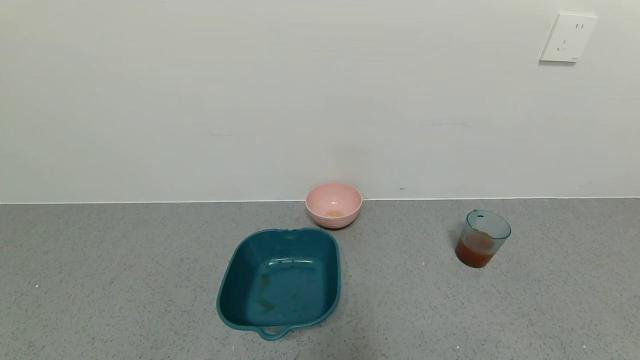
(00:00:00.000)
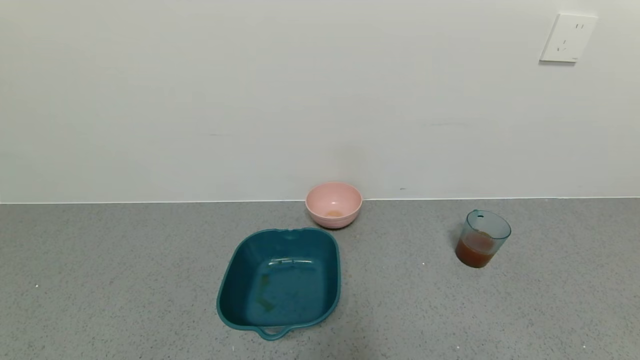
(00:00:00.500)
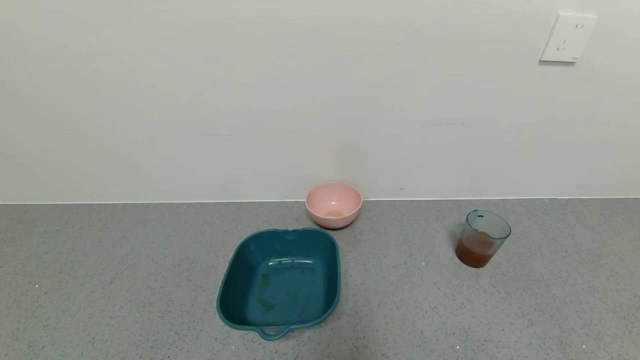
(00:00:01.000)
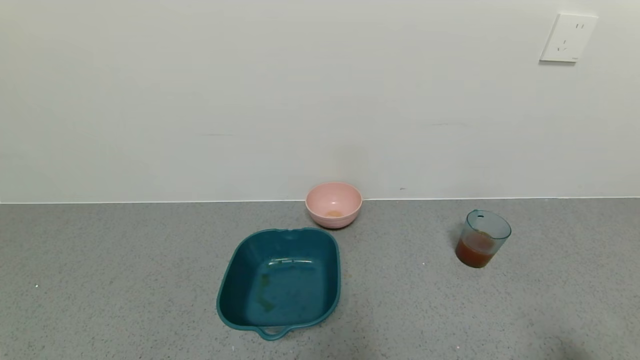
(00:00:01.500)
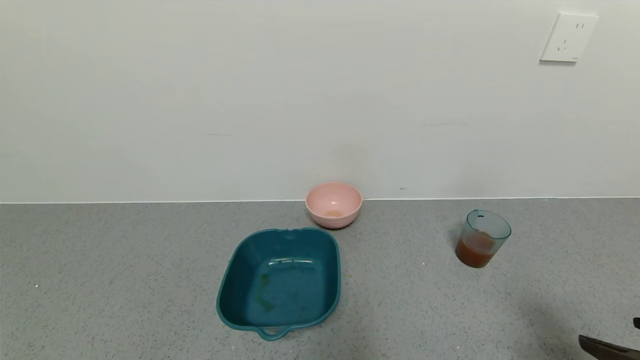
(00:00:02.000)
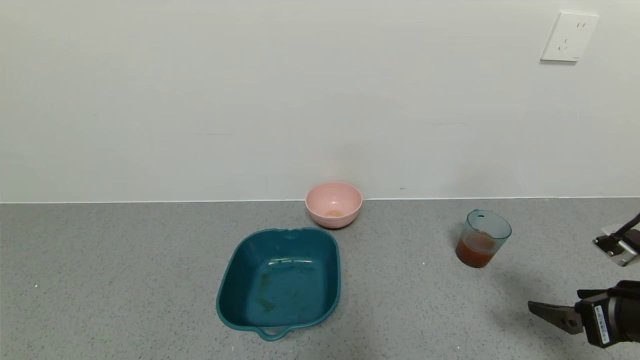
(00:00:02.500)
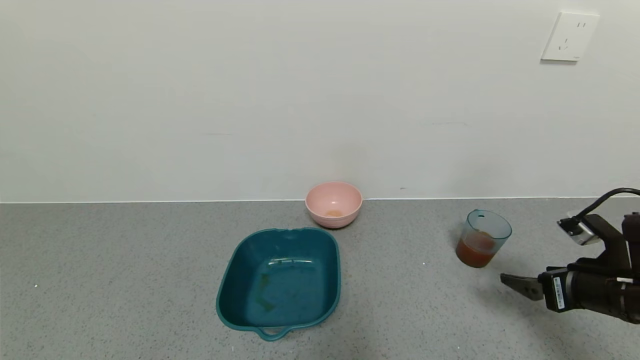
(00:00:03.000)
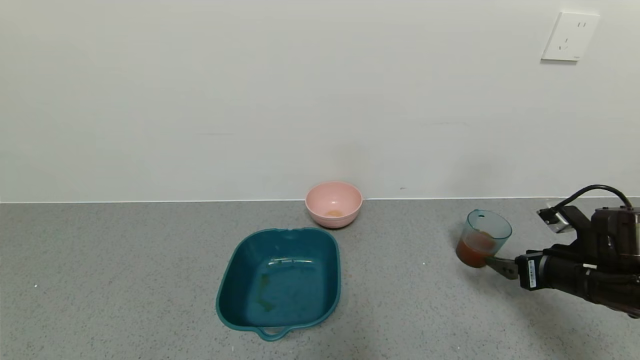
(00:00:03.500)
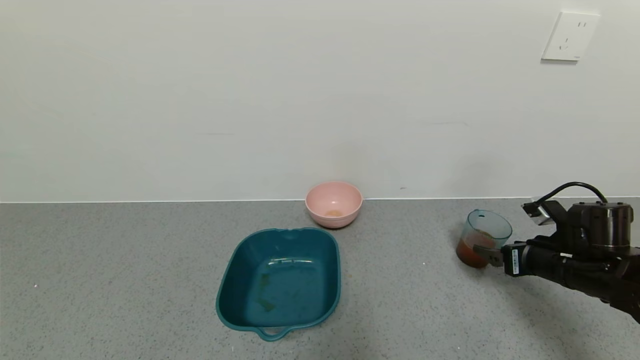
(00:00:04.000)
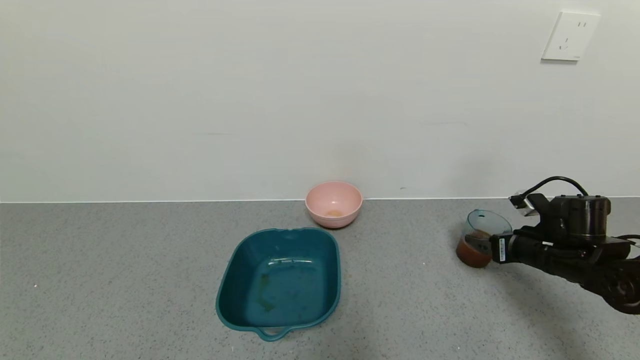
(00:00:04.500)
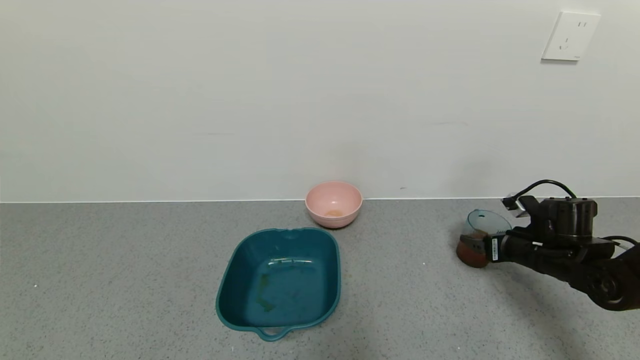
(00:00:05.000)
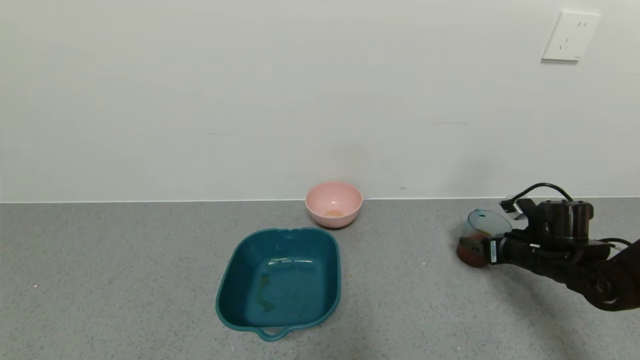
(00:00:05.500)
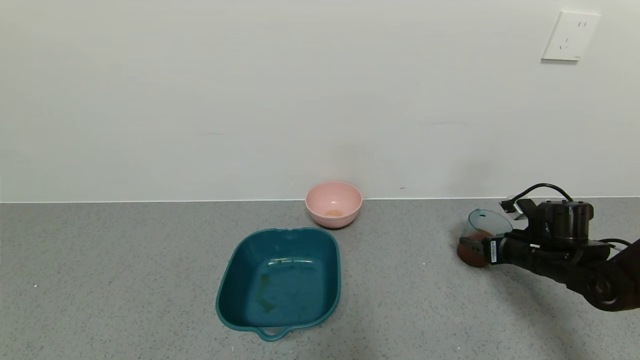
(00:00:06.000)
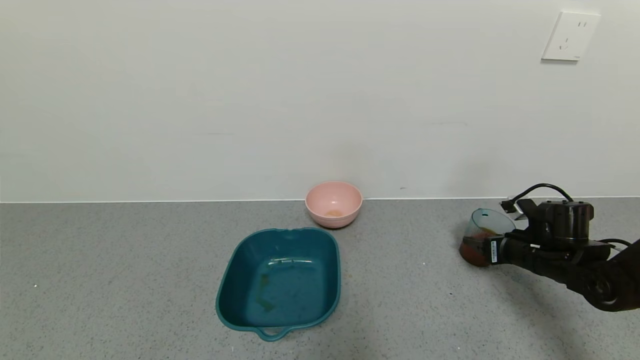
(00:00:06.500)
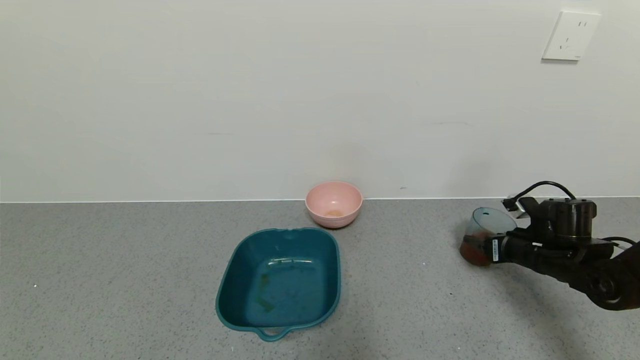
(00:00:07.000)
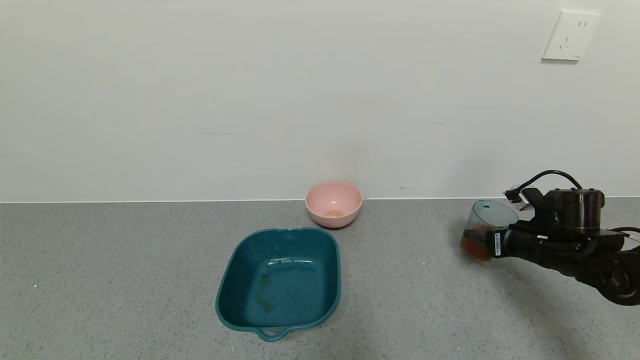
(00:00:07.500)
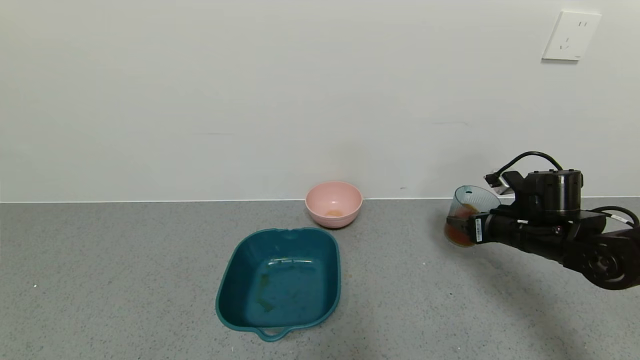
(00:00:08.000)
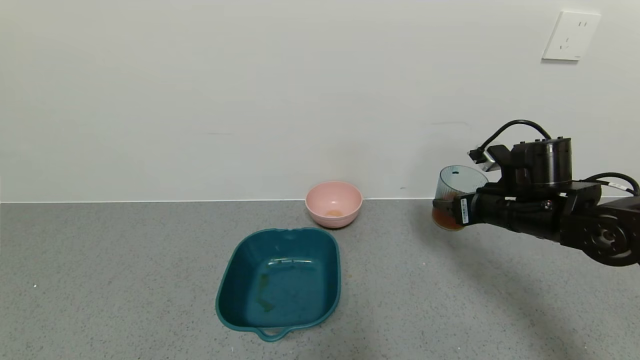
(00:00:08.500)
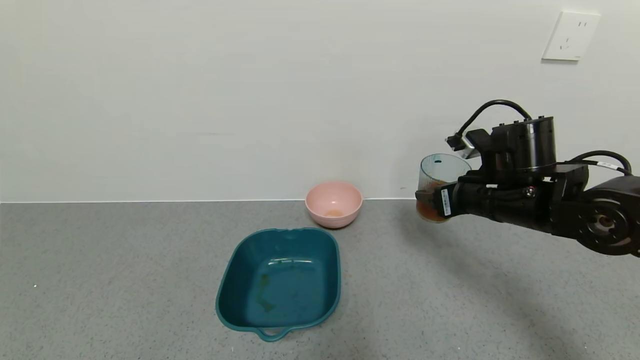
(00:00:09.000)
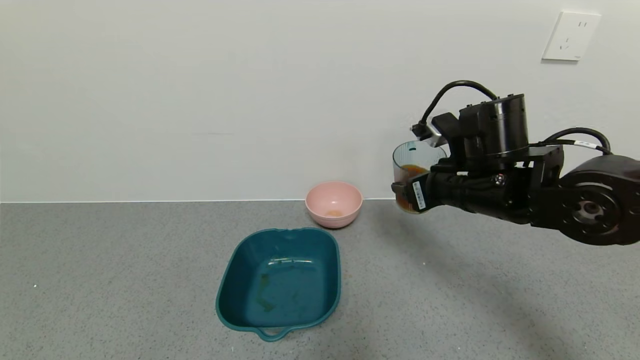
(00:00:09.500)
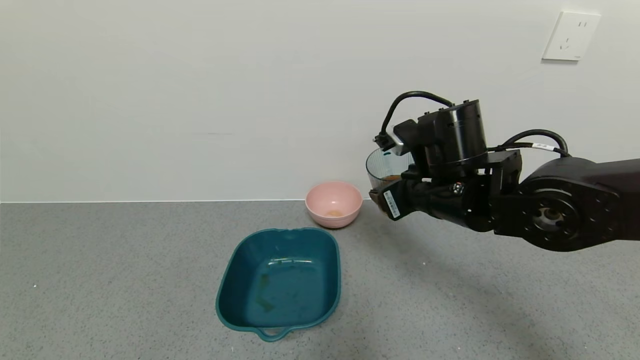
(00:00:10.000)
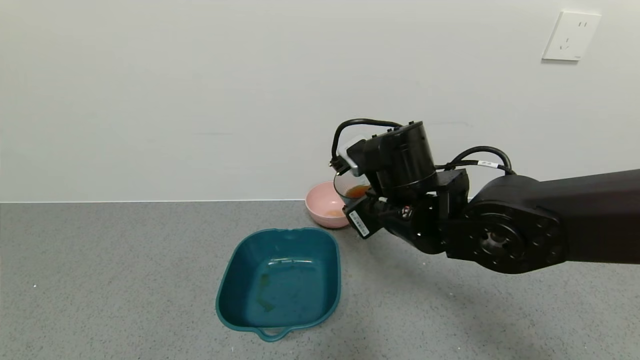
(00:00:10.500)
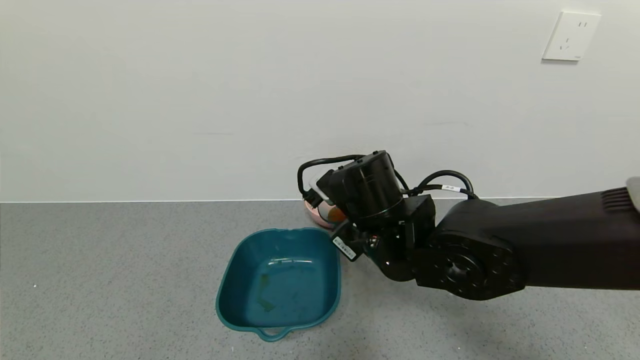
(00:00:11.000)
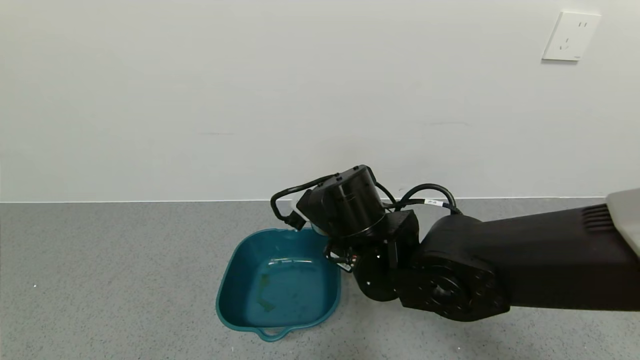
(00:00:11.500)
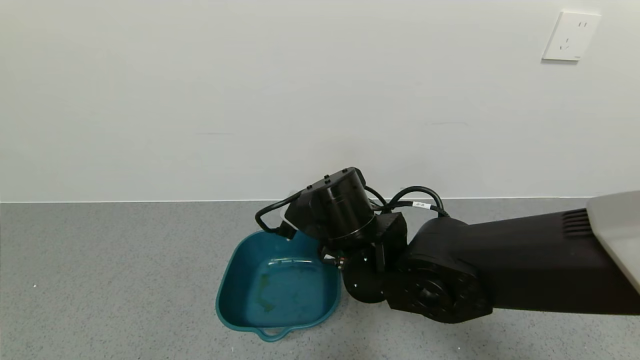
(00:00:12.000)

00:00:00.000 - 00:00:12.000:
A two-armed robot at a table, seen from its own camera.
Task of the whole recording: use a gripper to pick up the cup and pour the liquid into a bowl or tray.
00:00:00.000 - 00:00:02.000: The right gripper shifts roughly 15 cm forward and upward.
00:00:02.000 - 00:00:04.000: The right gripper is displaced forward by roughly 20 cm.
00:00:04.000 - 00:00:06.000: The right gripper moves roughly 5 cm.
00:00:06.000 - 00:00:08.000: The right gripper travels upward by some 5 cm, and closes.
00:00:08.000 - 00:00:10.000: The right gripper heads to the left and upward, covering some 20 cm.
00:00:10.000 - 00:00:12.000: The right gripper is displaced to the left and downward by approximately 10 cm.

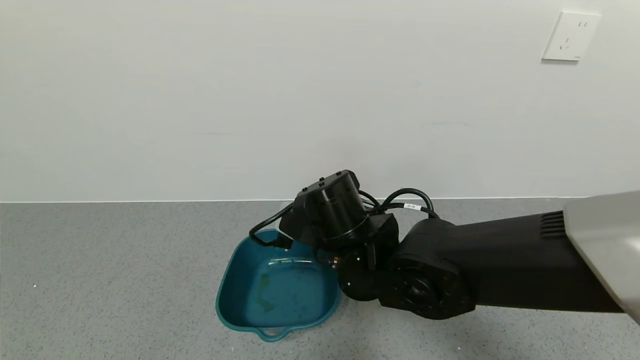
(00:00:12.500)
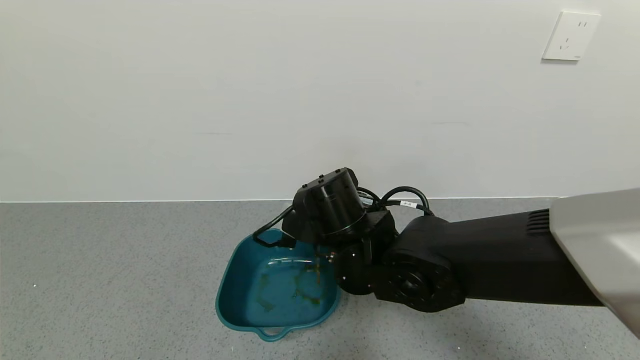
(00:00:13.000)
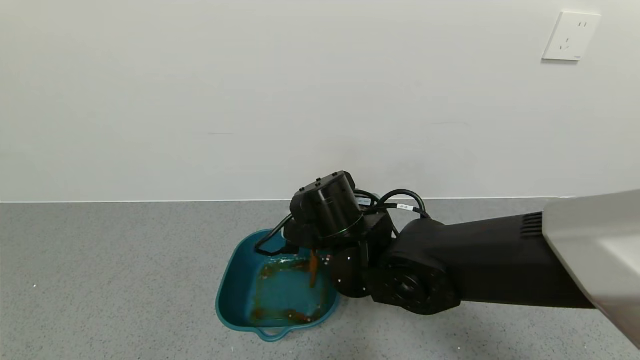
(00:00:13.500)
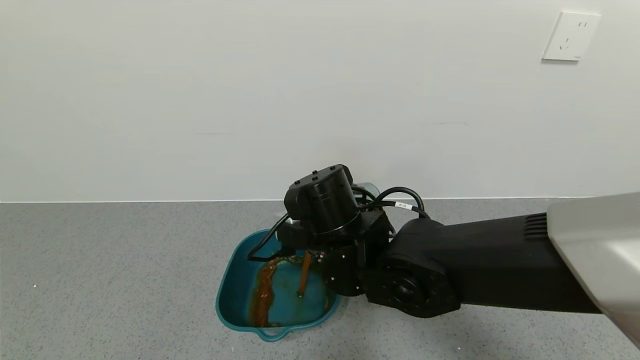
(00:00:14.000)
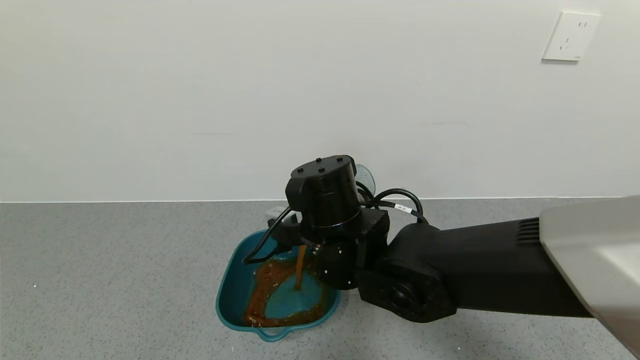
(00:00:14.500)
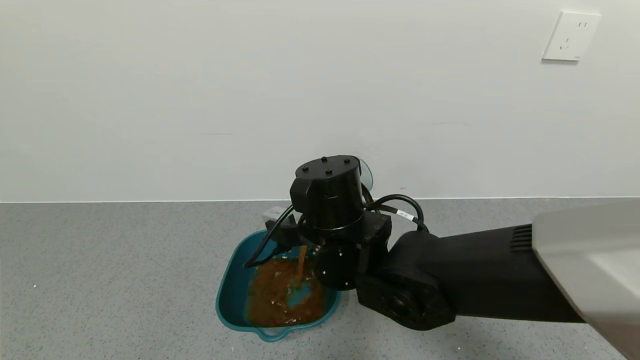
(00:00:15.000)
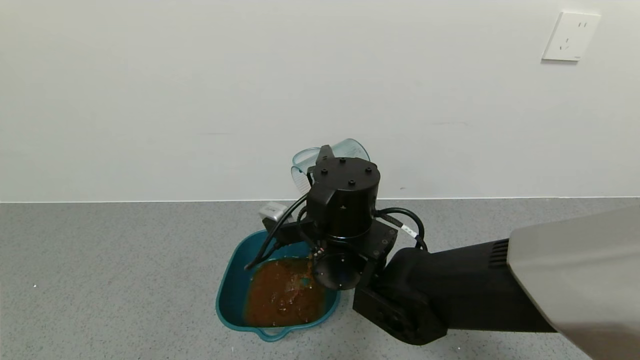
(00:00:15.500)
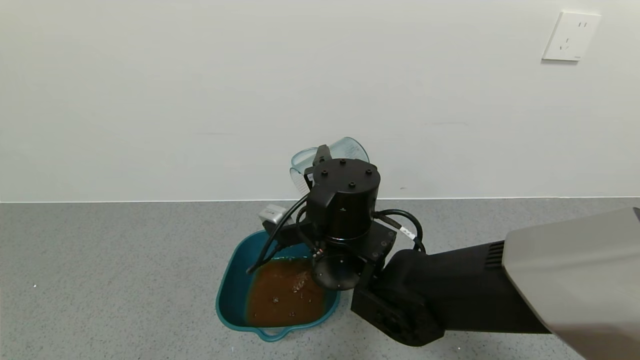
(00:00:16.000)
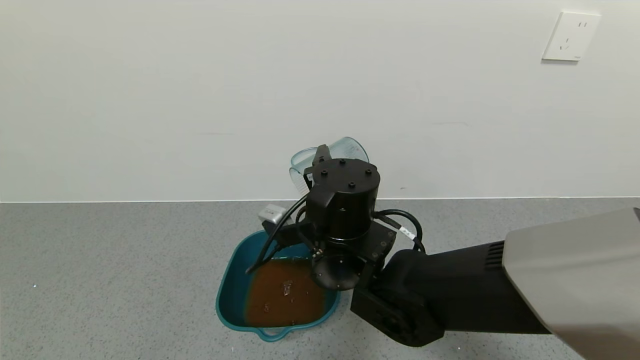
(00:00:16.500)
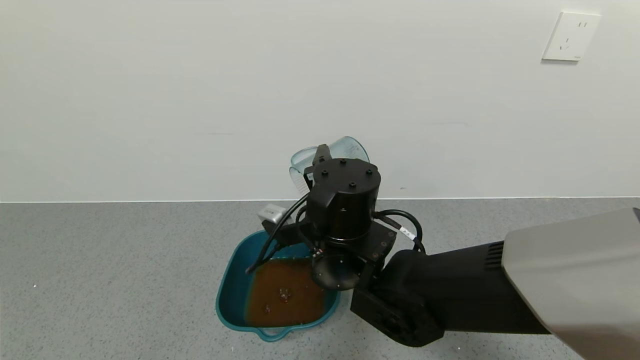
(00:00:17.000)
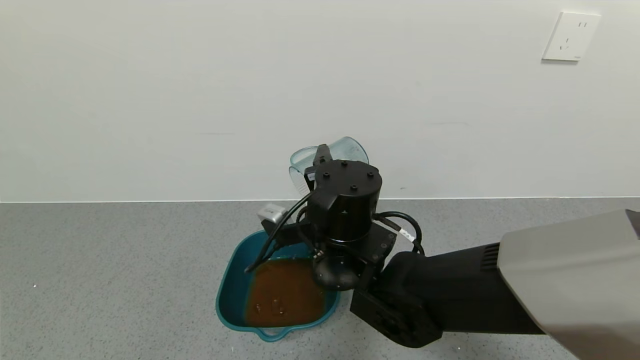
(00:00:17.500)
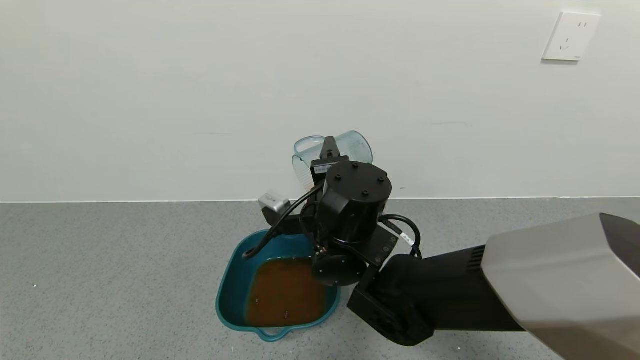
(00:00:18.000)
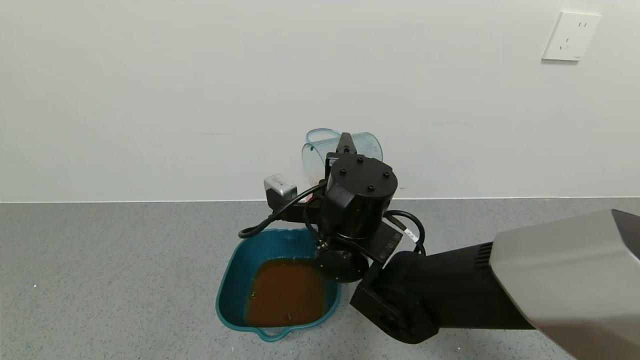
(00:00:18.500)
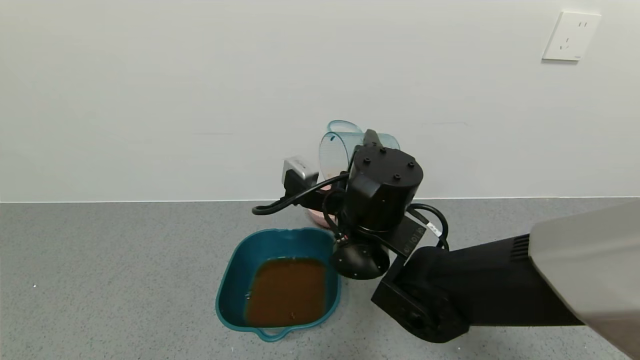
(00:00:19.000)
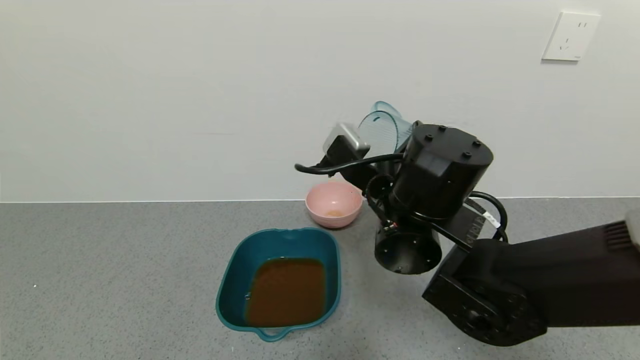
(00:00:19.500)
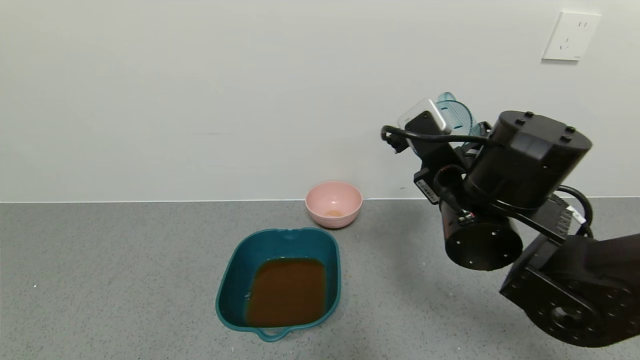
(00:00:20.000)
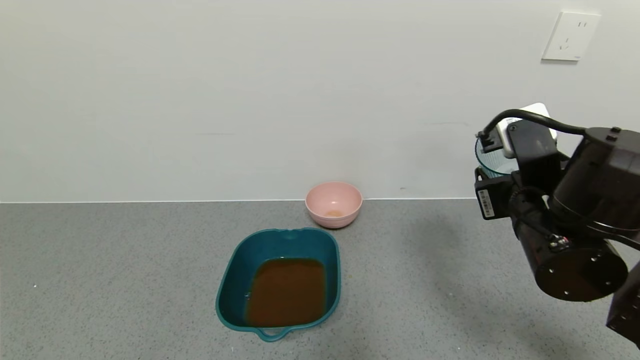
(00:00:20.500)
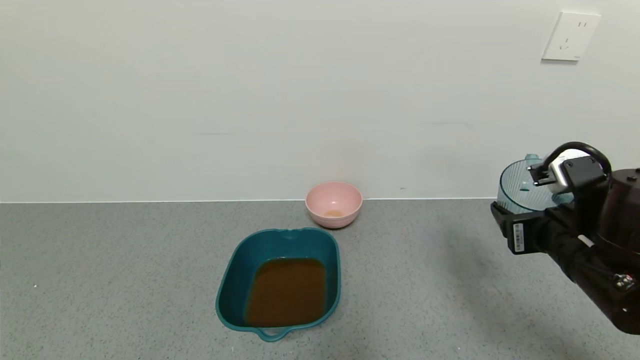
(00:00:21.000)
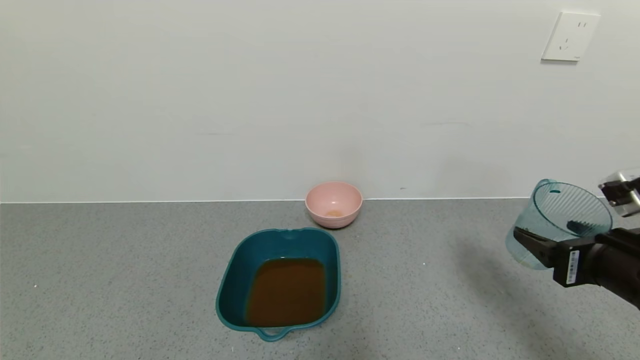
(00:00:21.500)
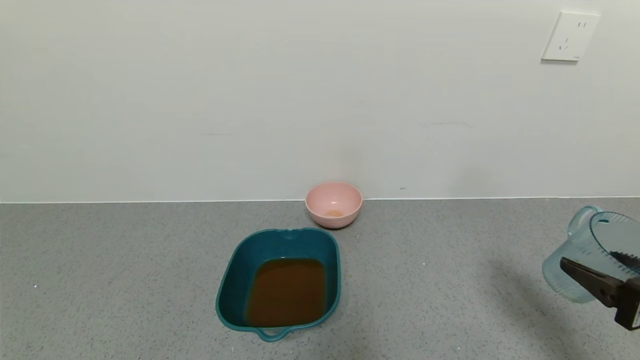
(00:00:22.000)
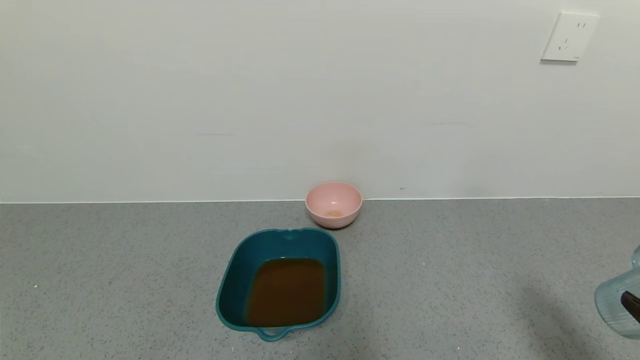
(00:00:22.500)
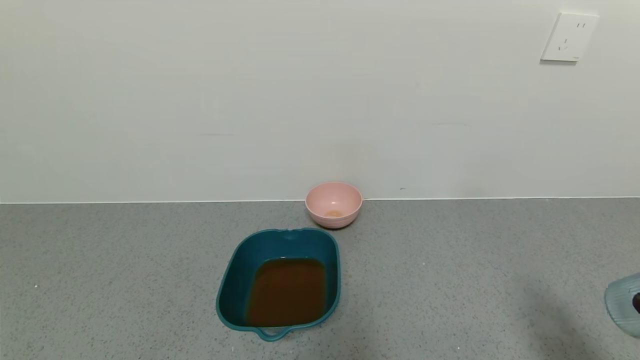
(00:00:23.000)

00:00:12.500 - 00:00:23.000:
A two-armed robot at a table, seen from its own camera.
Task of the whole recording: use a gripper to pick up the cup and pour the liquid into a bowl or tray.
Step, 00:00:12.500 - 00:00:18.000: Pour the tea into the blue basin with right gripper.
00:00:14.500 - 00:00:16.500: The grippers make only small movements.
00:00:19.000 - 00:00:21.000: The right gripper shifts about 25 cm to the right.
00:00:21.000 - 00:00:23.000: The right gripper goes some 20 cm backward and to the right.
